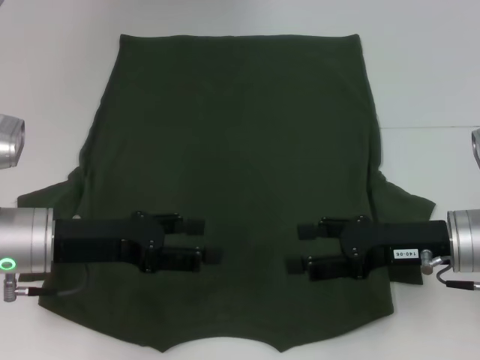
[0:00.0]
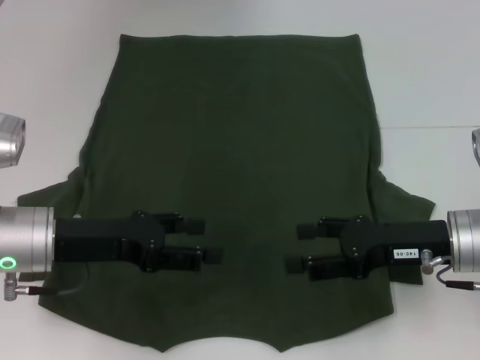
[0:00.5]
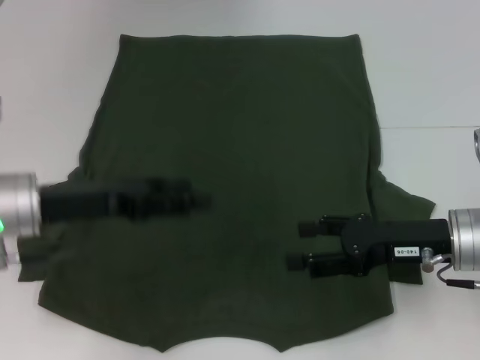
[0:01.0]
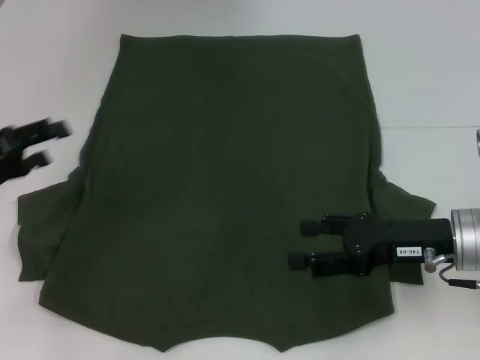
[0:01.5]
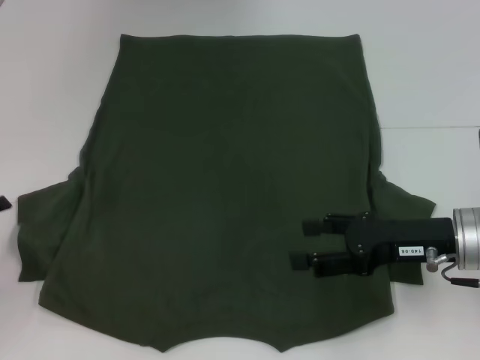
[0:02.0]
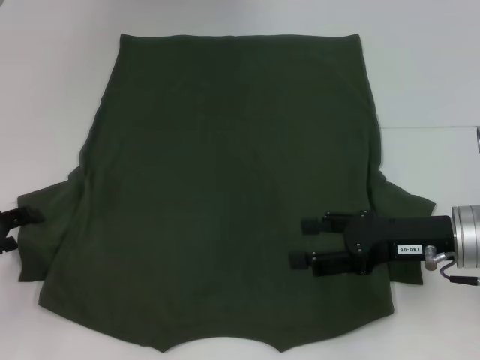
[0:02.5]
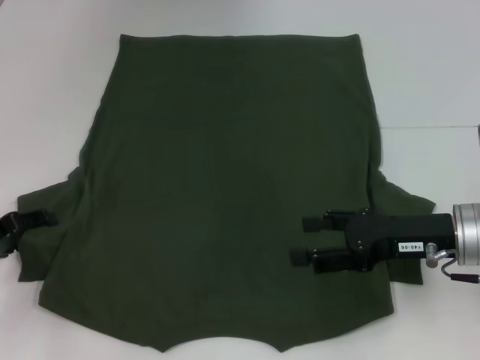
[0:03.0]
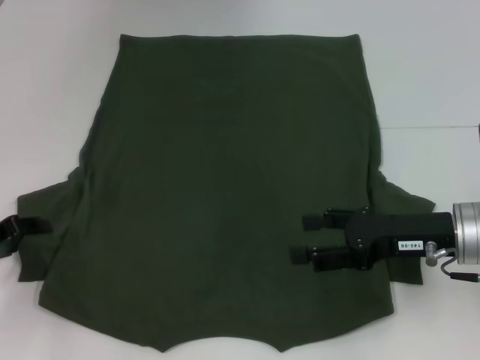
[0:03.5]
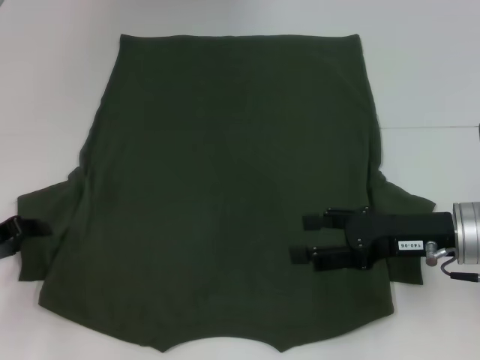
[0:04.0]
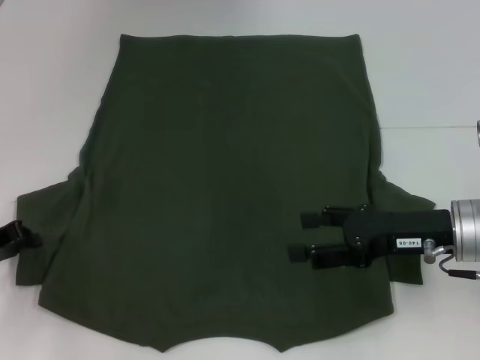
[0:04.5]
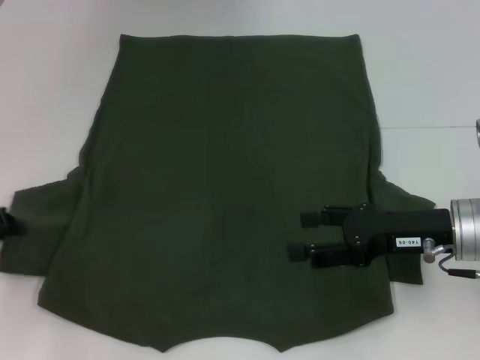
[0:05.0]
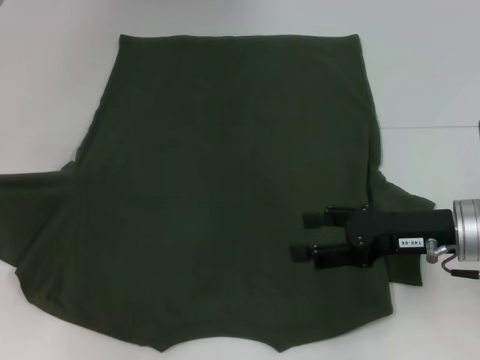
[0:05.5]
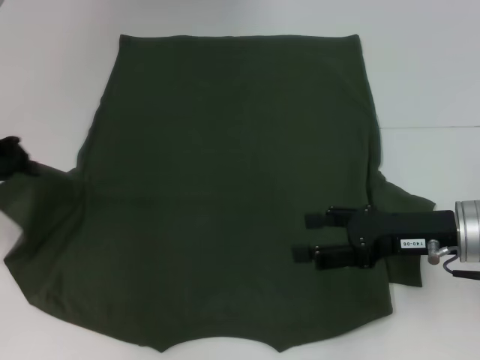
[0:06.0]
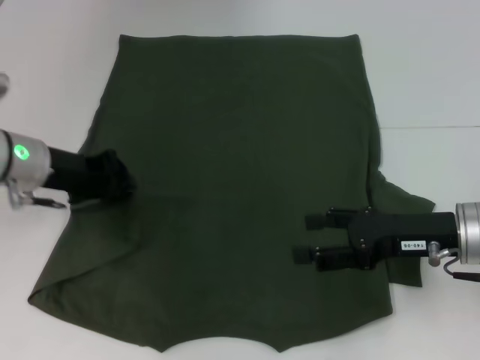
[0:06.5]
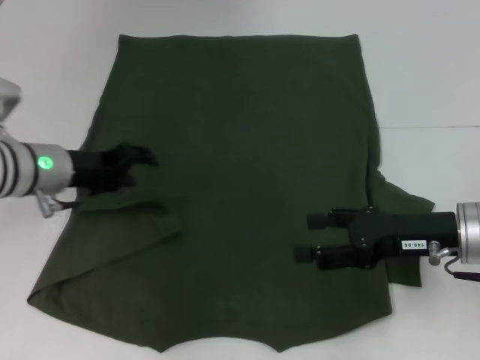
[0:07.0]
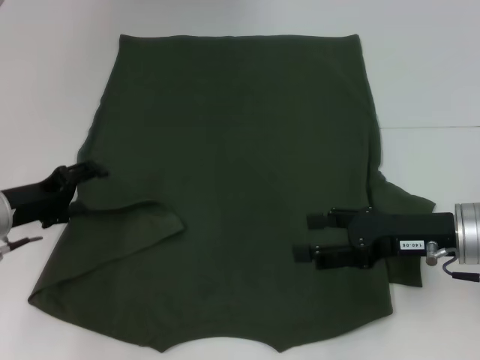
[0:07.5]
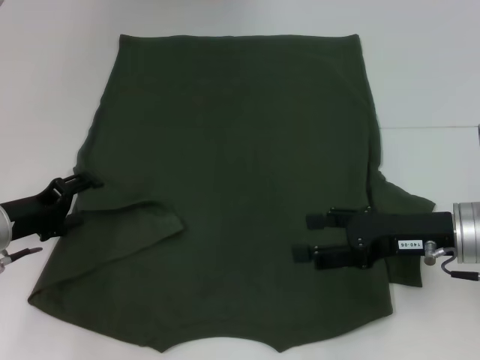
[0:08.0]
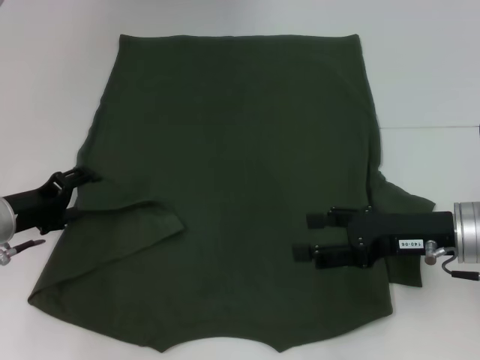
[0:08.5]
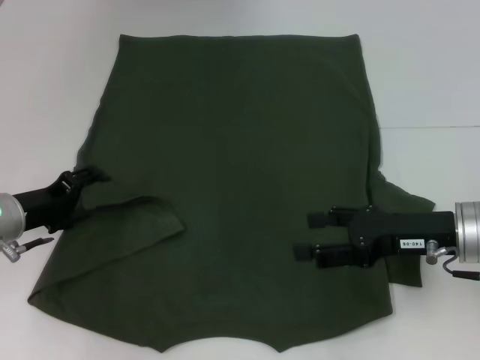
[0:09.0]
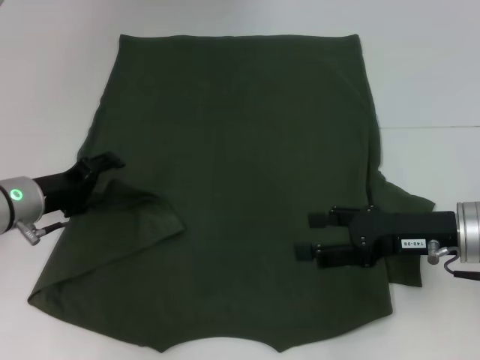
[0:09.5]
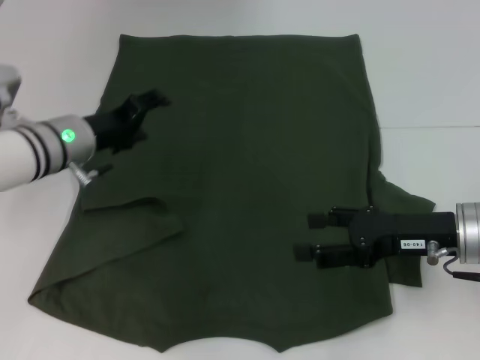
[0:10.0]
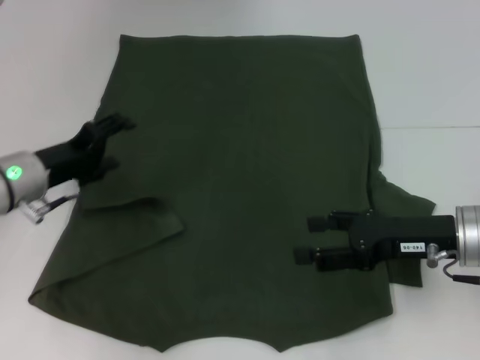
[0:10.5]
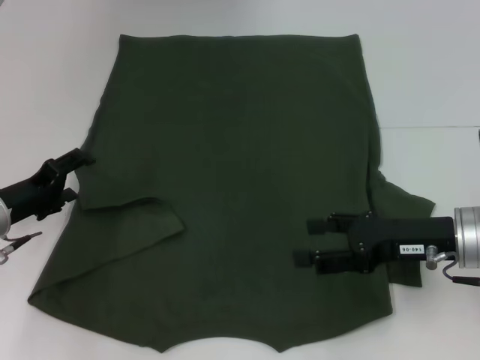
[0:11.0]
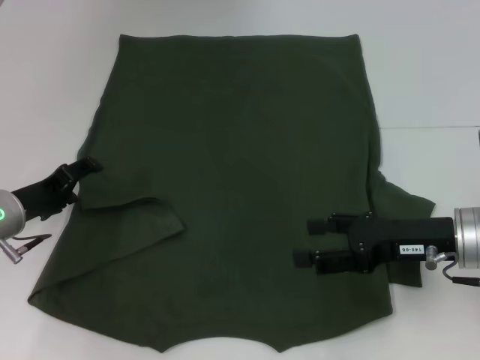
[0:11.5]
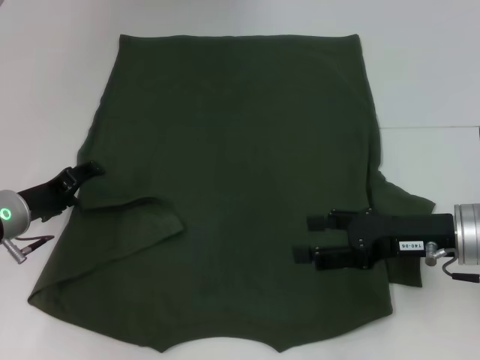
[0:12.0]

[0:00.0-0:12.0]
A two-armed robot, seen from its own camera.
Step, 0.0 to 6.5 s: Fold the bottom left sleeve with your left hand.
0.0 to 2.0 s: The left gripper is displaced to the left by roughly 15 cm.
2.0 to 4.0 s: The left gripper ends up roughly 5 cm from where it was, and closes.
4.0 to 6.0 s: The left gripper goes some 15 cm upward and forward, and closes its fingers.
6.0 to 8.0 s: The left gripper moves downward, approximately 10 cm, and opens.
8.0 to 10.0 s: The left gripper heads to the right and forward, covering roughly 10 cm.
10.0 to 12.0 s: The left gripper is displaced to the left, downward and backward by some 10 cm.

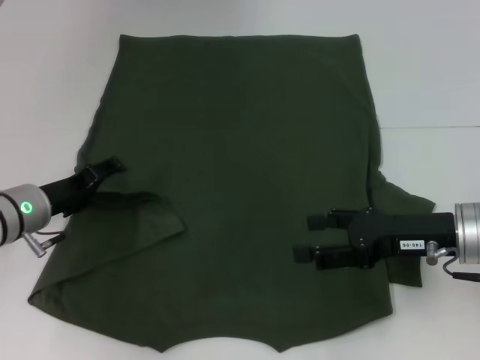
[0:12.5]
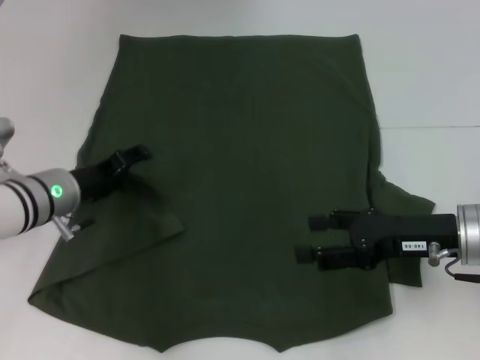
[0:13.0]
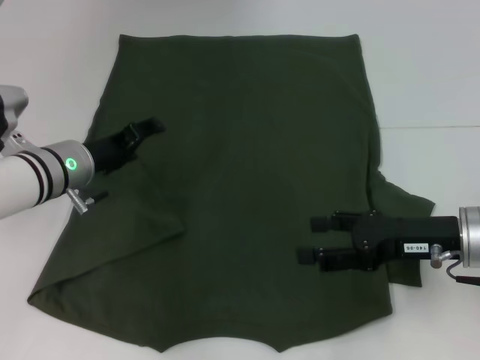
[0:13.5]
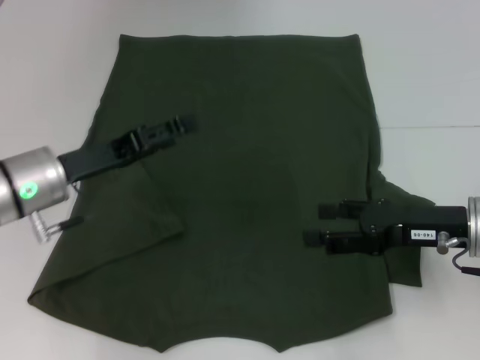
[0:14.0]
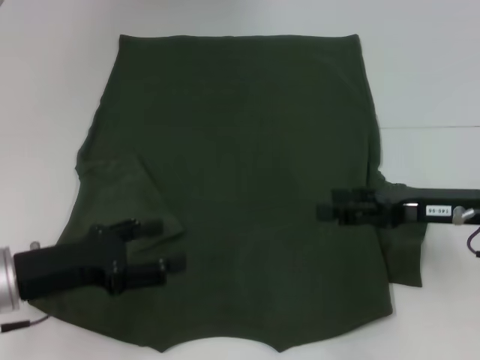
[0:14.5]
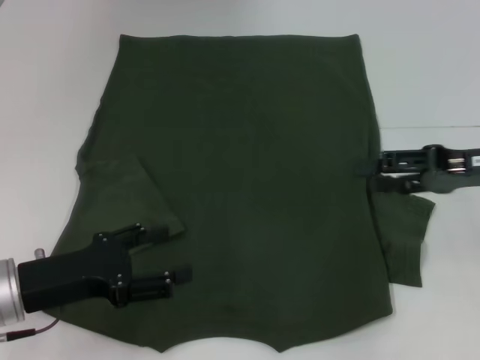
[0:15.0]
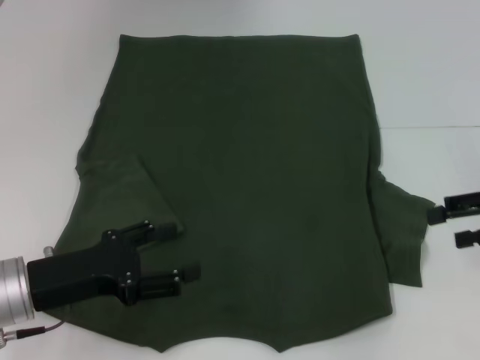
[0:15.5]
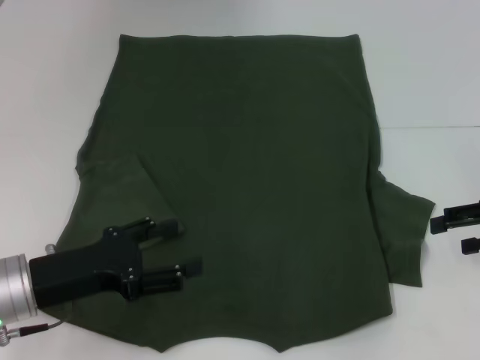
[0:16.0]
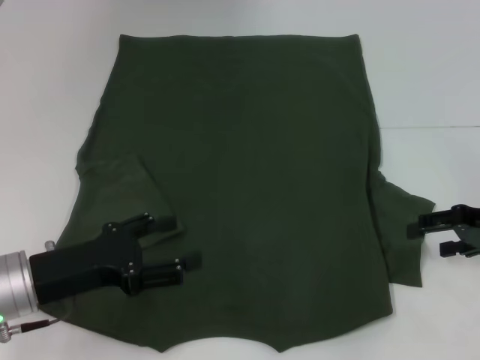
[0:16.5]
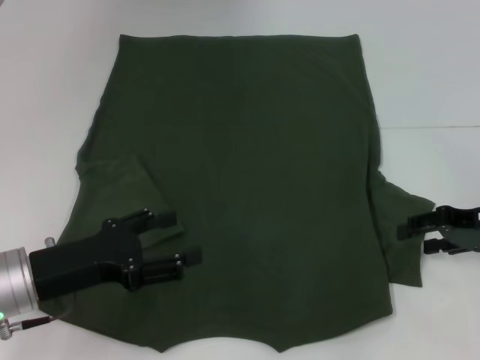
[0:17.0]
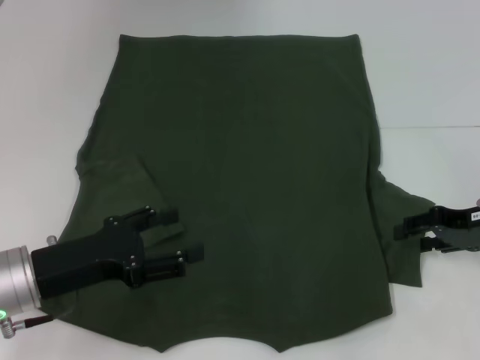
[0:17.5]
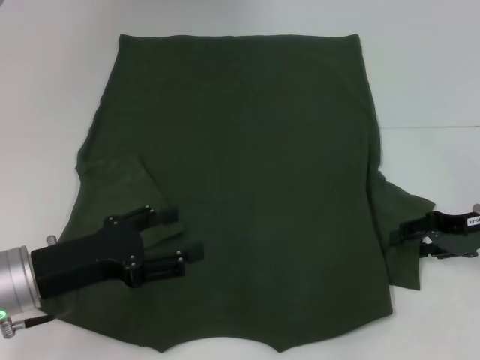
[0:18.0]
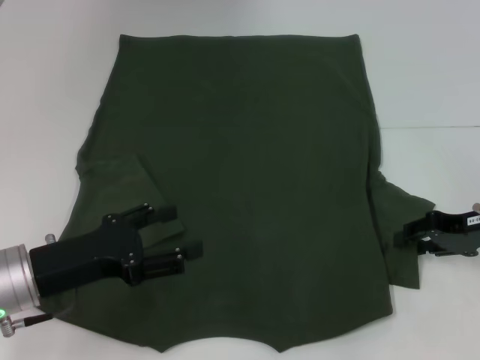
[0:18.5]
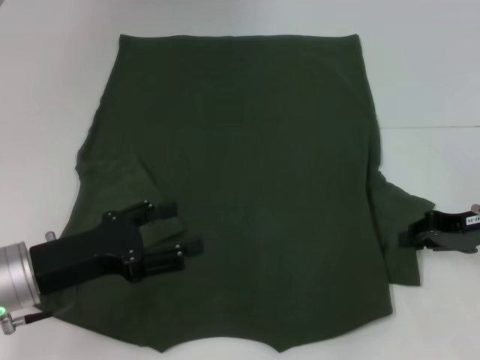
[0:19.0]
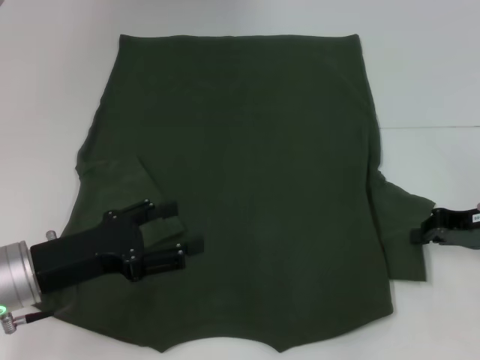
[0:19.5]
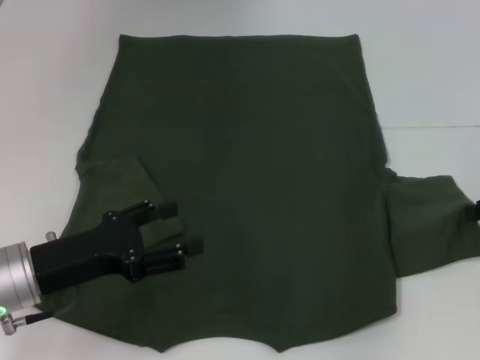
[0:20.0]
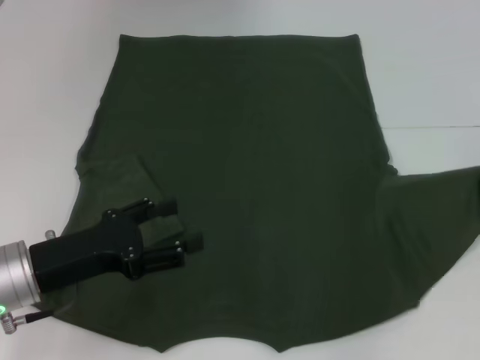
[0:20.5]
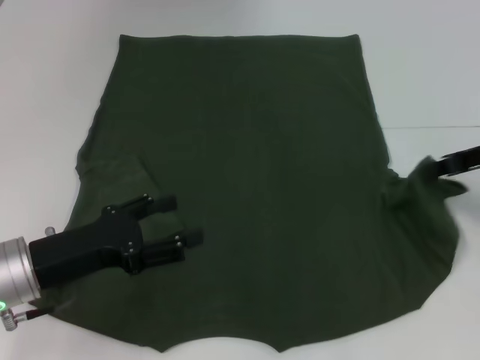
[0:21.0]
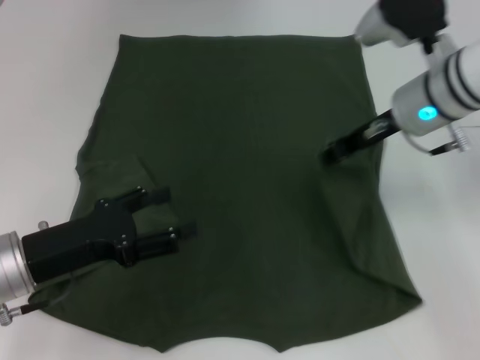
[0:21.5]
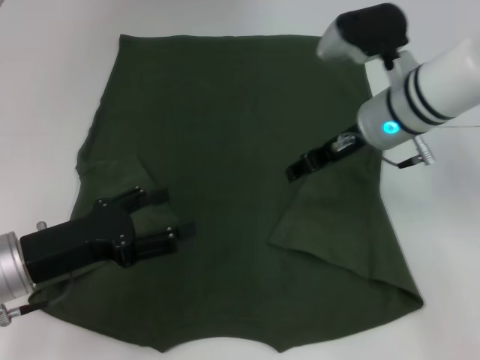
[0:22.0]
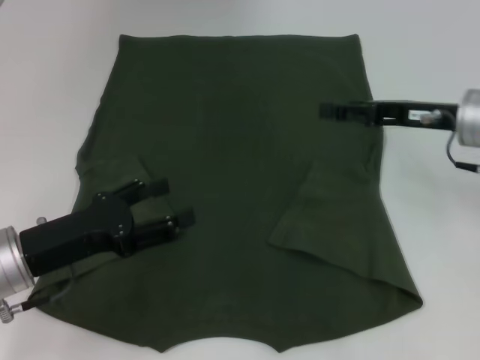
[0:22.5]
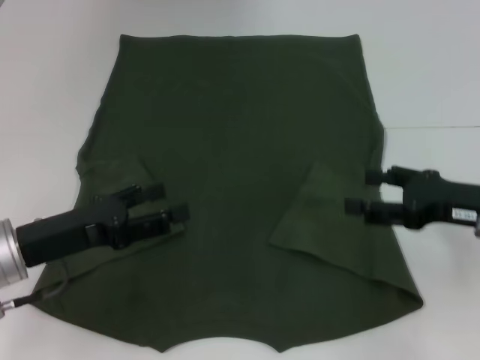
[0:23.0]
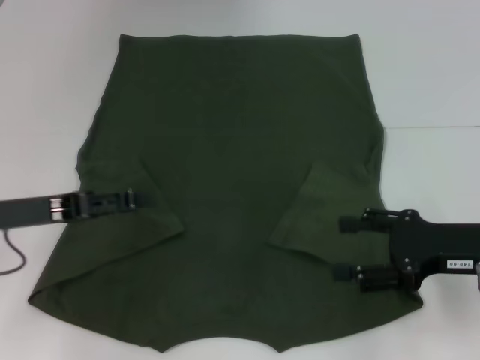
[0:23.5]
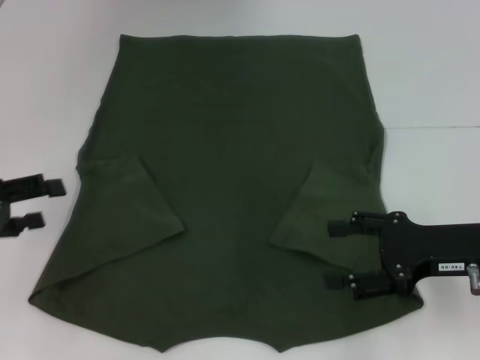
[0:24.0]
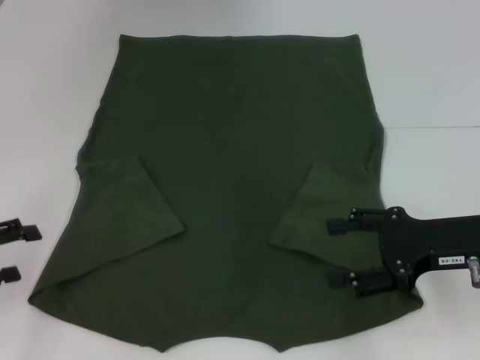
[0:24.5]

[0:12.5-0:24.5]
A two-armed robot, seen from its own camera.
Step, 12.5 to 21.5 s: Fold the bottom right sleeve with your right hand.
12.5 to 14.5 s: The left gripper shifts approximately 10 cm backward.
14.5 to 16.5 s: The right gripper is displaced to the right by approximately 5 cm.
16.5 to 18.5 s: The right gripper closes up.
18.5 to 20.5 s: The right gripper shifts some 10 cm to the right and upward, and closes.
20.5 to 22.5 s: The right gripper goes some 15 cm to the left, and opens its fingers.
22.5 to 24.5 s: The right gripper heads backward, covering roughly 10 cm. The left gripper travels to the left by about 15 cm.

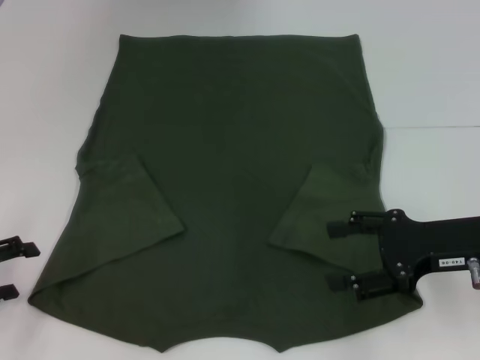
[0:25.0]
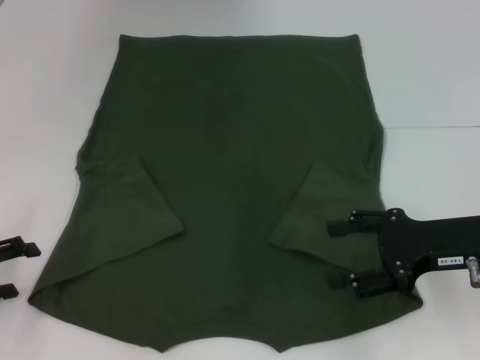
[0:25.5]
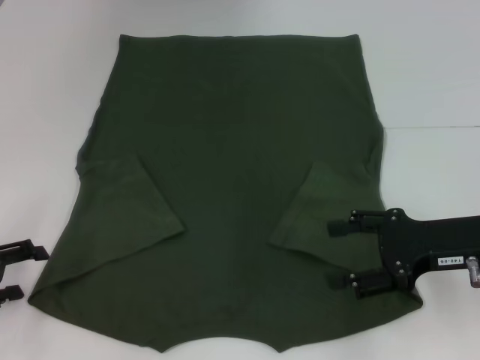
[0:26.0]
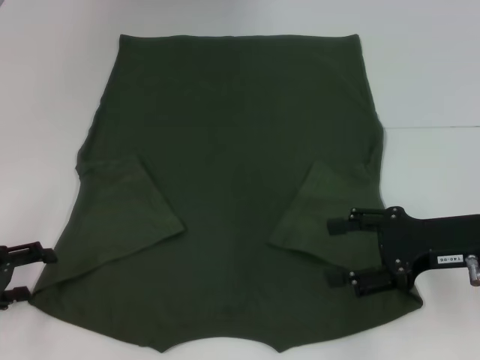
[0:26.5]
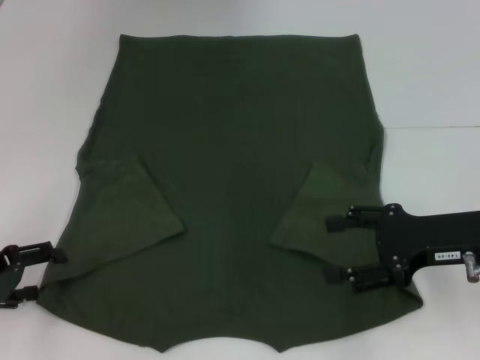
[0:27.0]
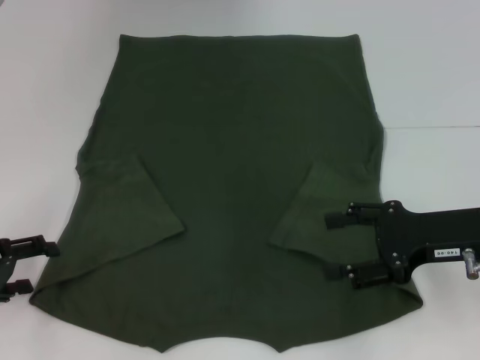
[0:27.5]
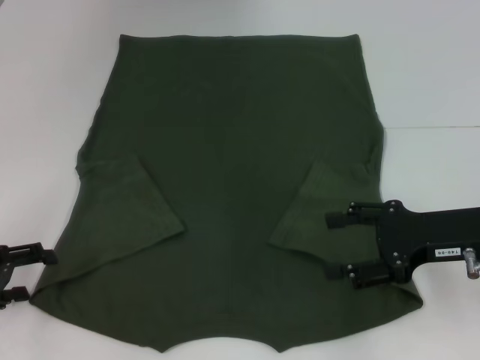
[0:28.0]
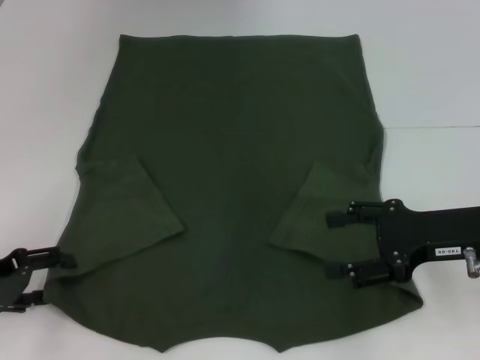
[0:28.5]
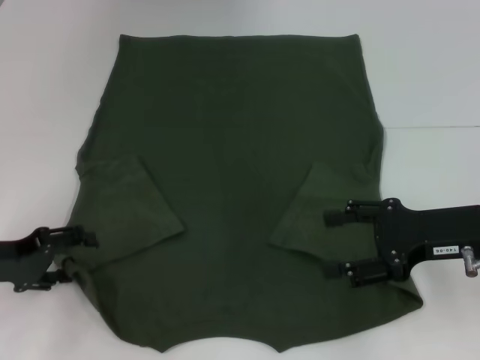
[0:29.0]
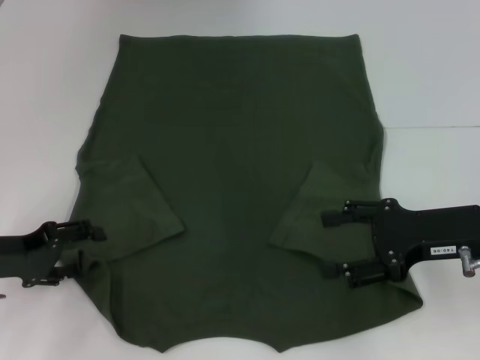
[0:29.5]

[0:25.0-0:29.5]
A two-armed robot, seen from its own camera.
25.0 to 27.0 s: The grippers make only small movements.
27.0 to 29.5 s: The grippers move only a little.
